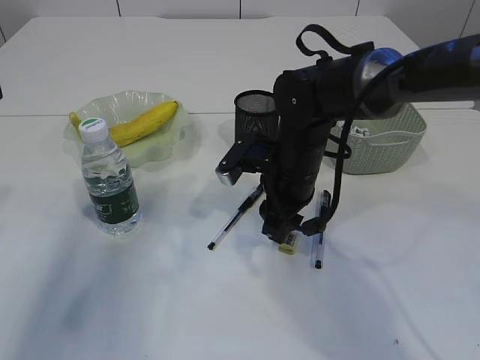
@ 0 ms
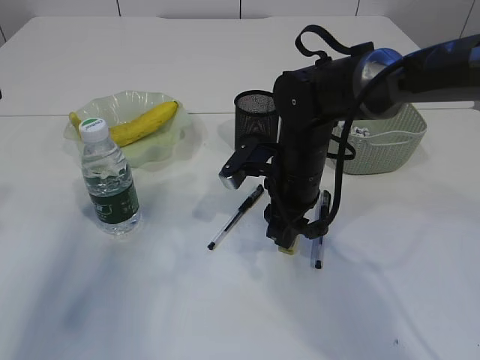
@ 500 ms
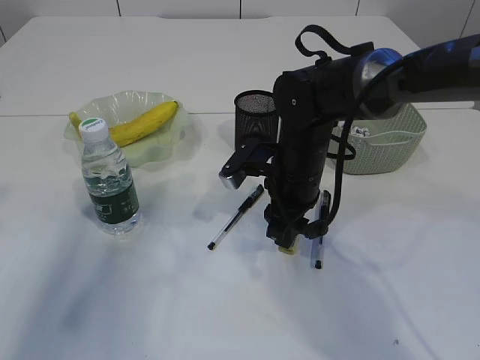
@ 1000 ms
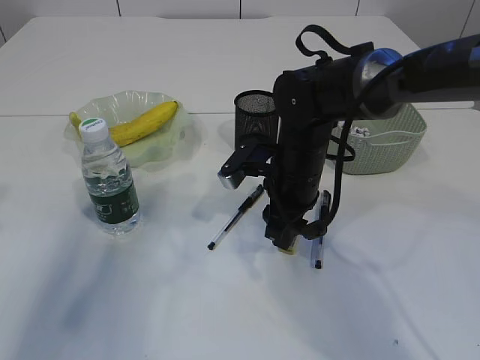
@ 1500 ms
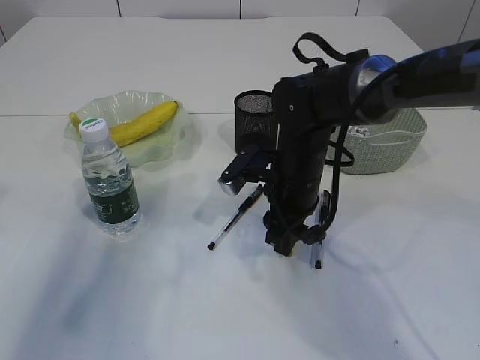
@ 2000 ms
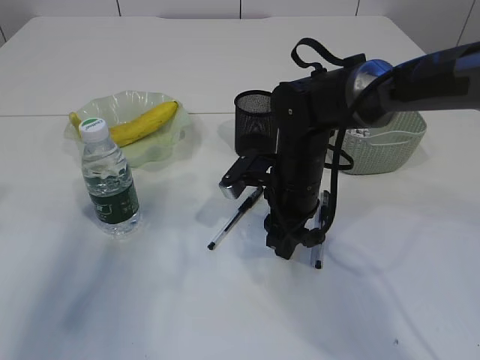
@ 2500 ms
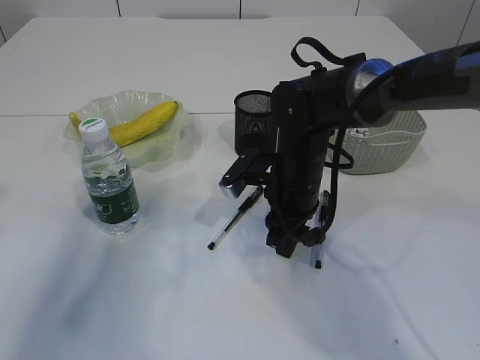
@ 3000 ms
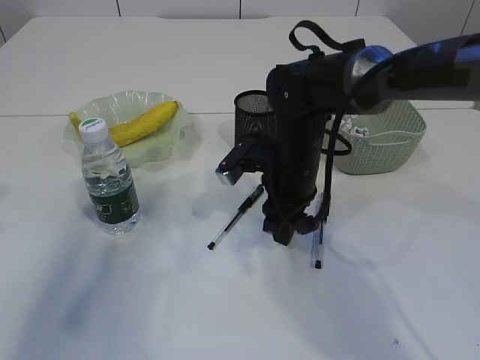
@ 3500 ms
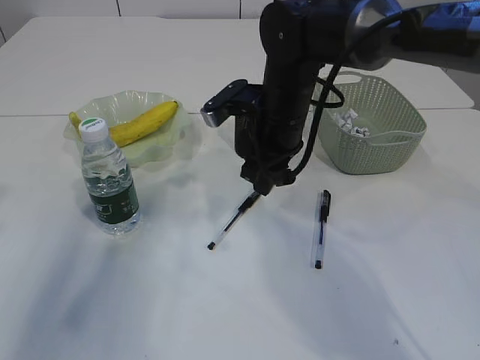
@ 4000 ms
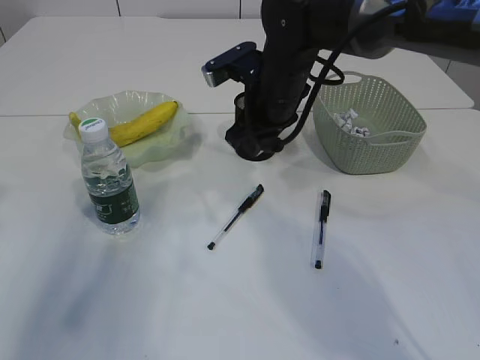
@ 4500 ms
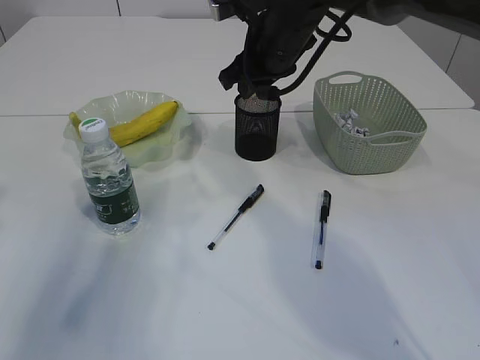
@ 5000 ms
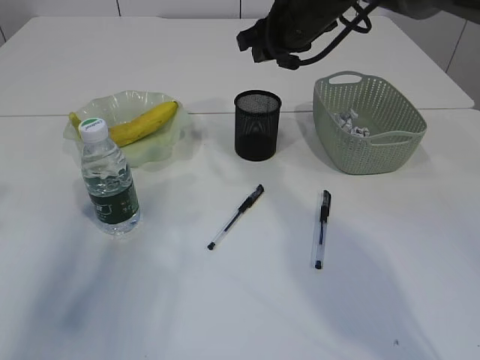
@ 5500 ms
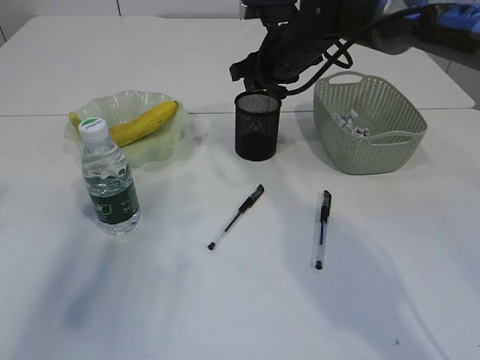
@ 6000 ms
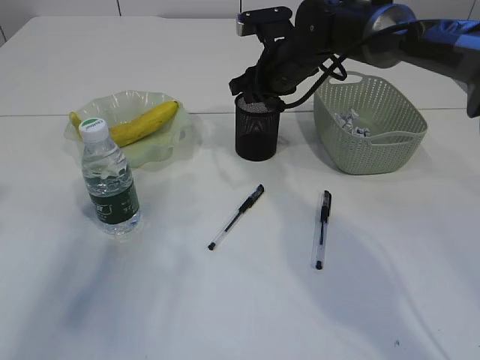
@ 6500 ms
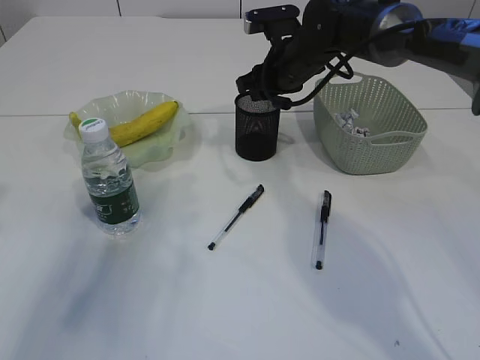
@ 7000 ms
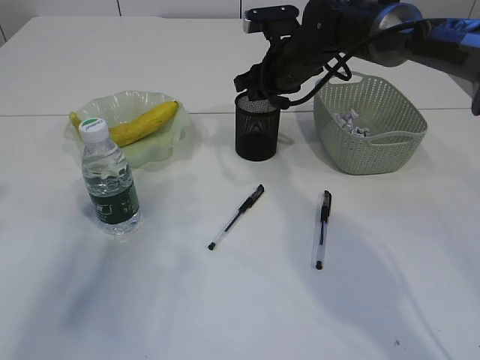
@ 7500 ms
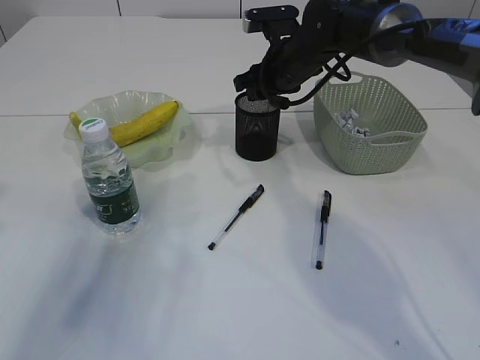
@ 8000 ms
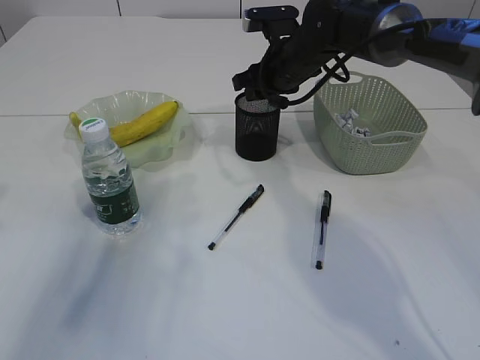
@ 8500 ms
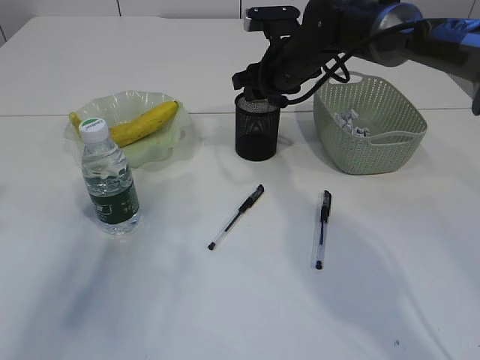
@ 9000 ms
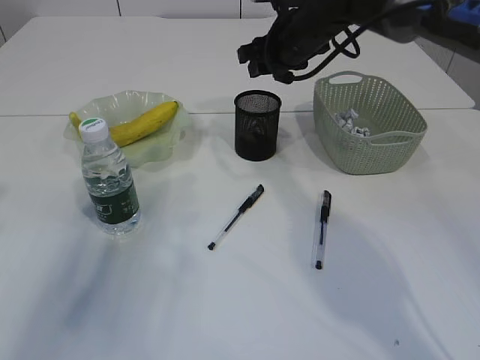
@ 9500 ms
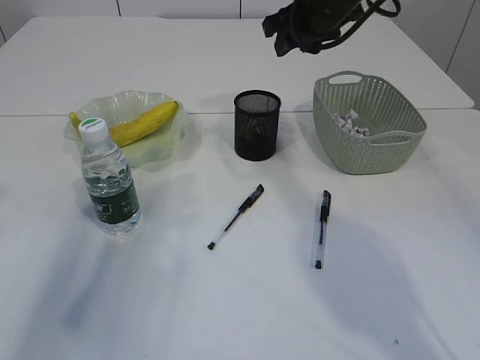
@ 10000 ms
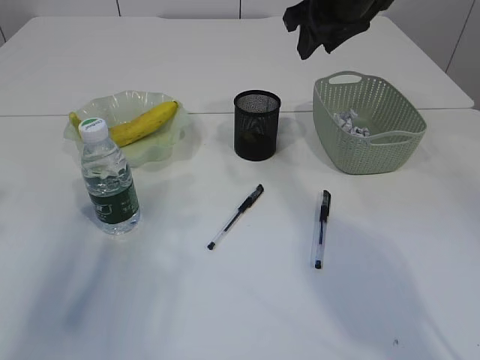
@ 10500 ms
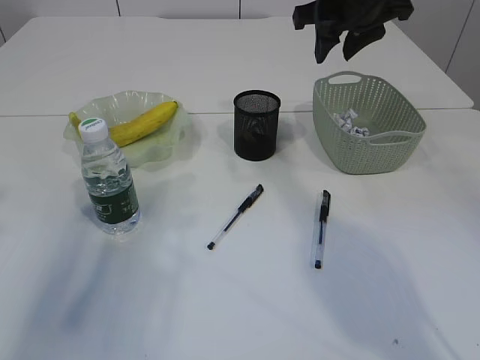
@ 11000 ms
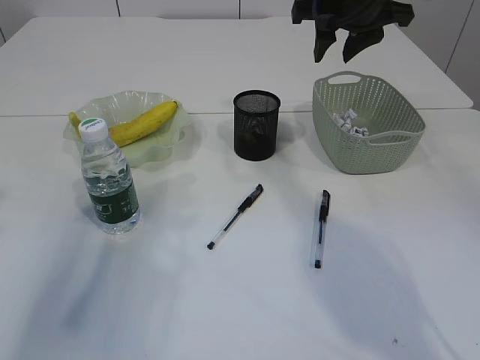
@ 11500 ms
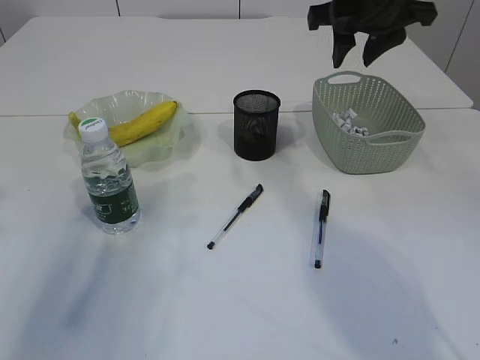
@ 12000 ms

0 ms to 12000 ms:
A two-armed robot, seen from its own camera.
Step, 0 ms to 3500 ms: Pick up the eraser.
Step, 4000 ms to 9500 ms: Place the eraser into the pen holder.
0 ms to 2000 ms: There are only small adjustments of the grippers.
2000 ms to 4000 ms: The right gripper shifts some 5 cm upward.
4000 ms to 6000 ms: The right gripper moves forward, approximately 10 cm.
6000 ms to 8000 ms: The grippers make only small movements.
8000 ms to 10000 ms: The right gripper is displaced upward by roughly 10 cm.
10000 ms to 12000 ms: The right gripper shifts approximately 5 cm backward.

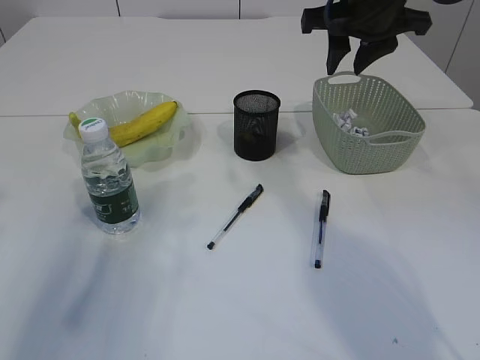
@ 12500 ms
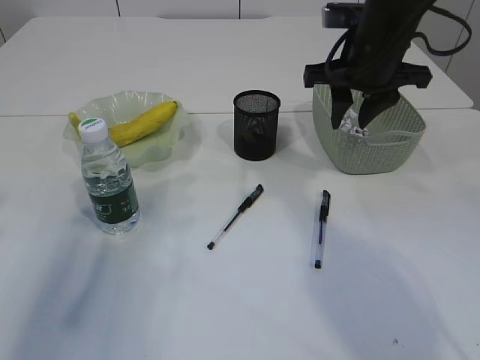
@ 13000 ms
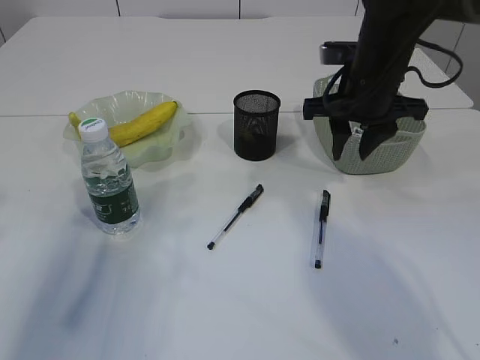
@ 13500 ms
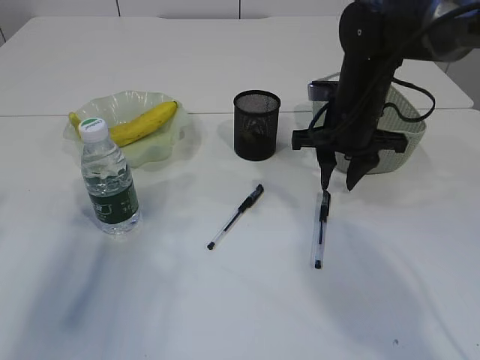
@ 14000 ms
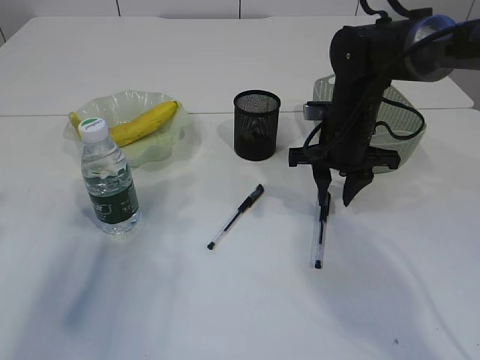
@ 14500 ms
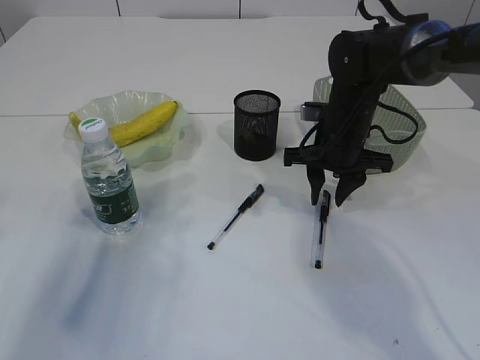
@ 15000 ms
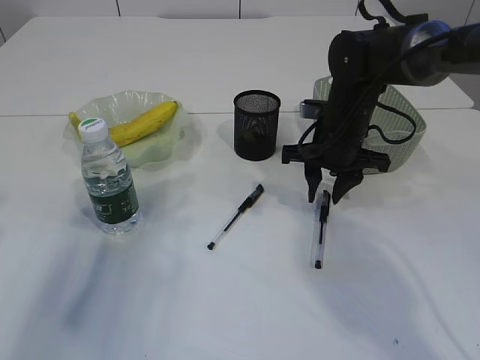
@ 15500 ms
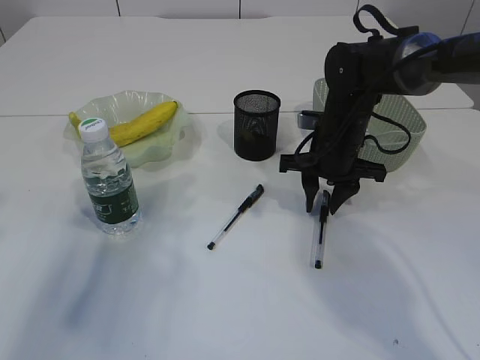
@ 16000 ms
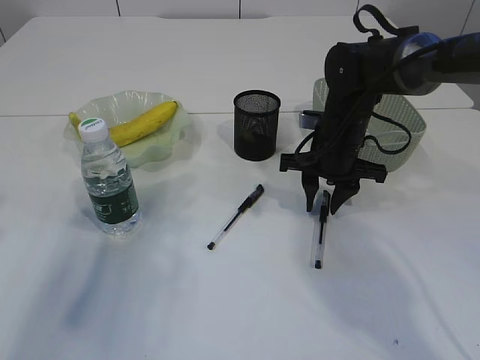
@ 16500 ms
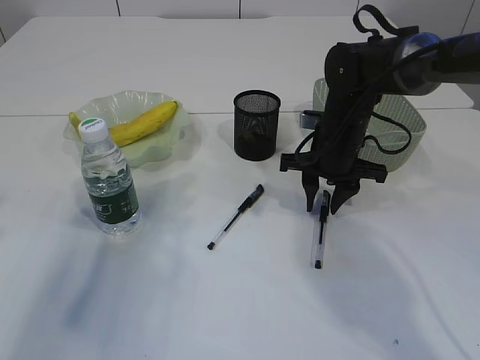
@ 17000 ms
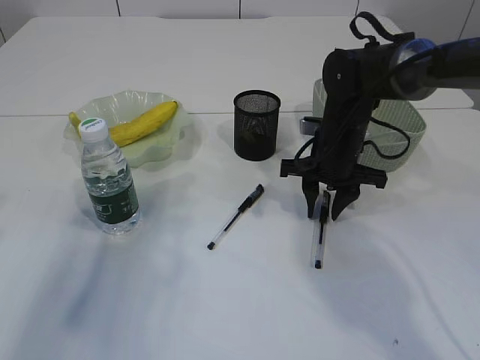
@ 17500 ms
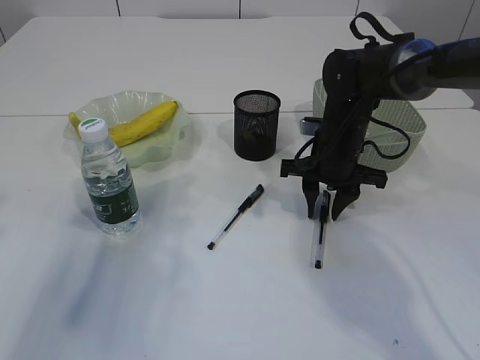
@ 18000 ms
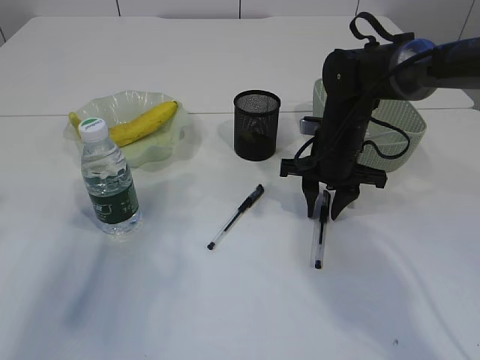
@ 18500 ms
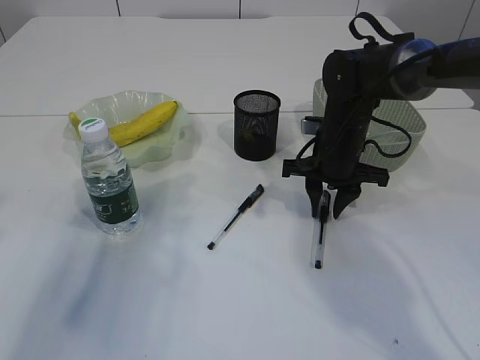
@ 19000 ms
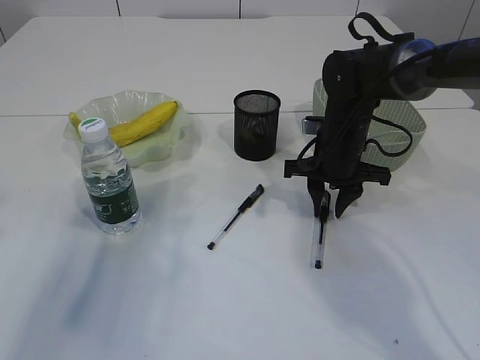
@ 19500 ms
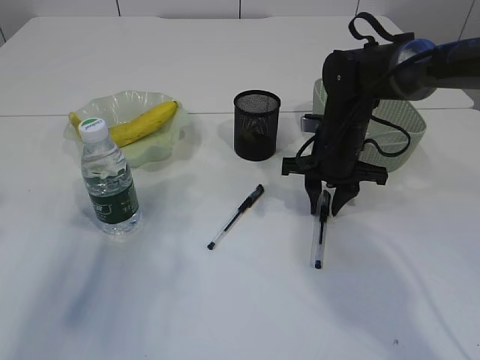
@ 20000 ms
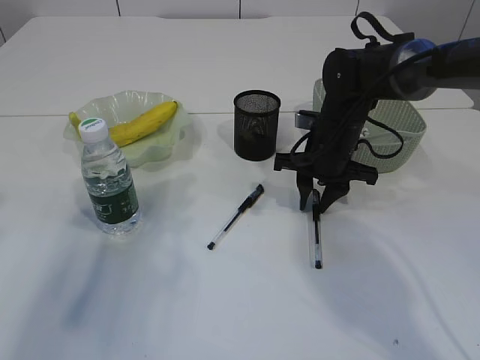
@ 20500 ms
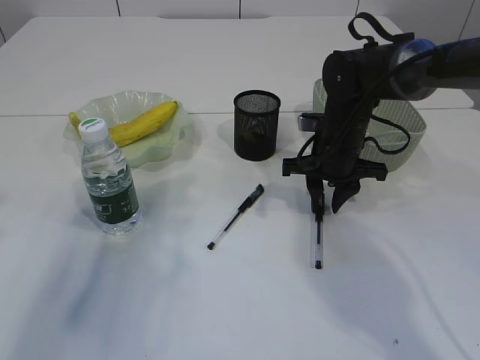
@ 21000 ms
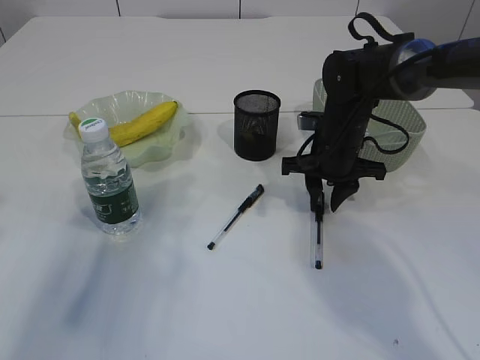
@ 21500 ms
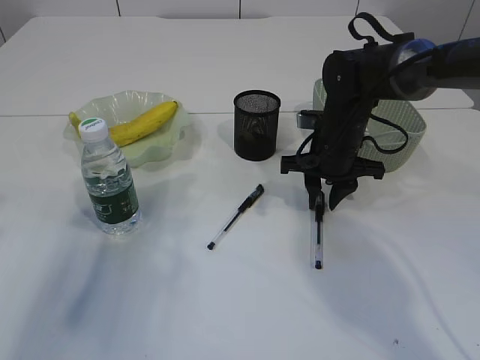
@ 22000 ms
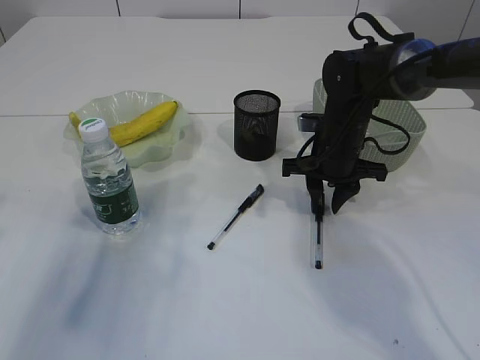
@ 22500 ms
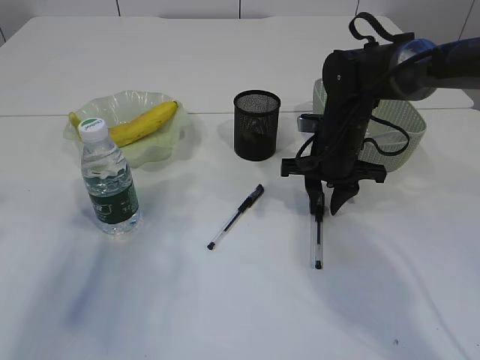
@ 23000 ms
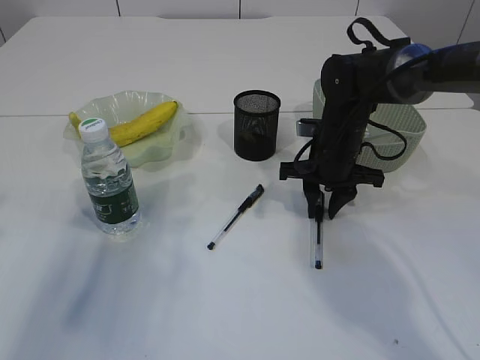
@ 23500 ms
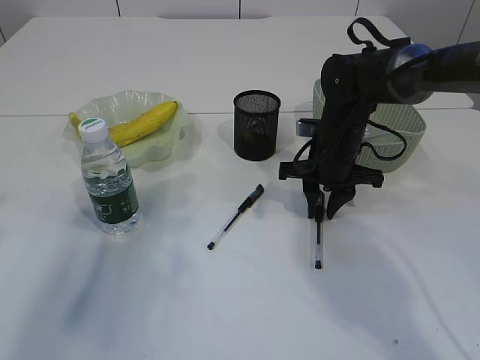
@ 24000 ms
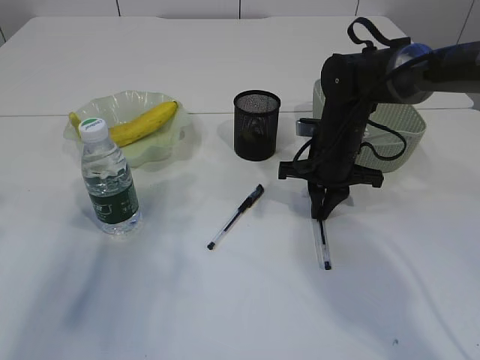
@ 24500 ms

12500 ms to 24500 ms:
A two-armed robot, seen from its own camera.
12500 ms to 14500 ms: The right gripper is displaced downward by about 15 cm.
14500 ms to 16500 ms: The grippers make only small movements.
16500 ms to 18500 ms: Neither gripper changes place.
18500 ms to 22500 ms: There are only small adjustments of the grippers.
22500 ms to 24500 ms: The two grippers keep their place.

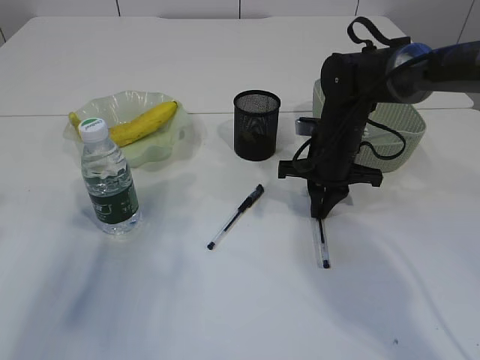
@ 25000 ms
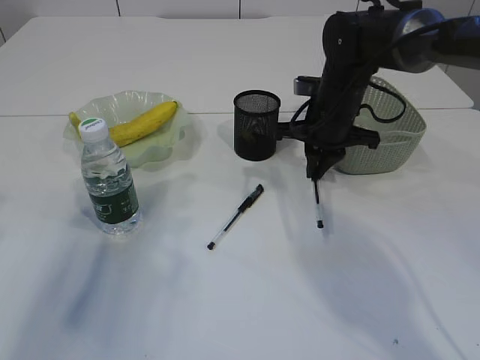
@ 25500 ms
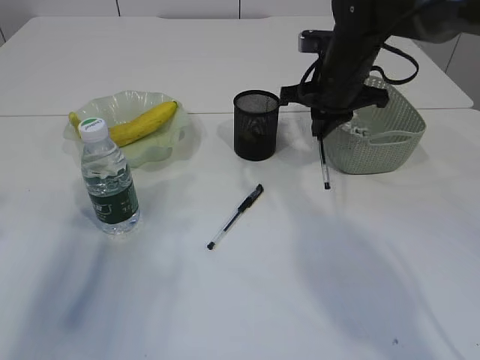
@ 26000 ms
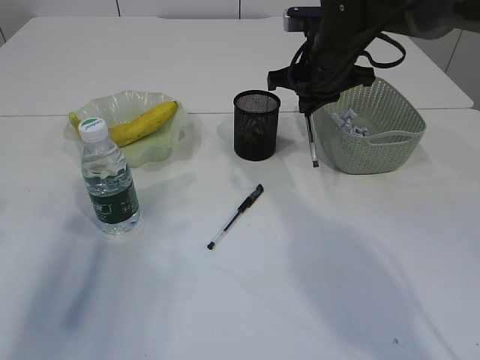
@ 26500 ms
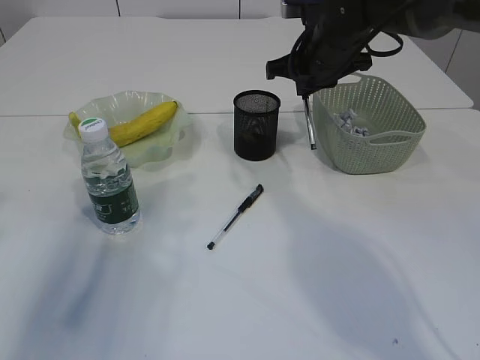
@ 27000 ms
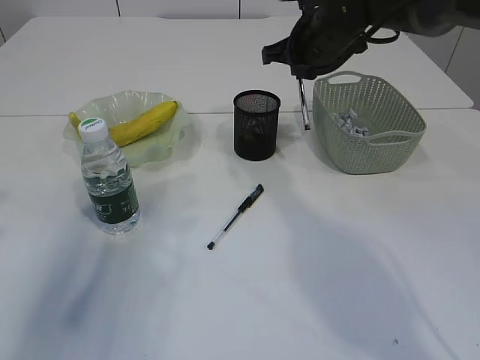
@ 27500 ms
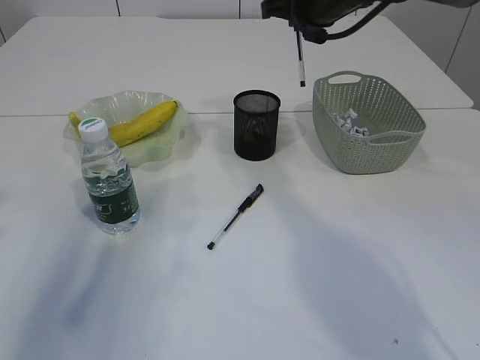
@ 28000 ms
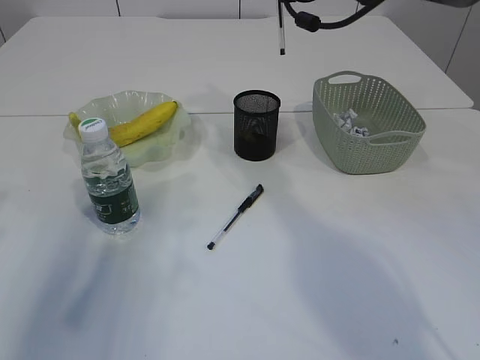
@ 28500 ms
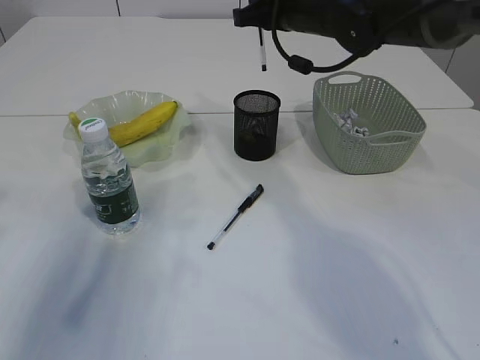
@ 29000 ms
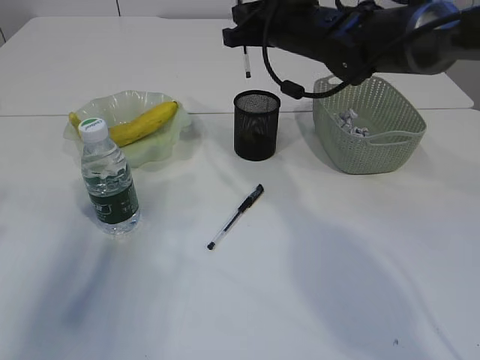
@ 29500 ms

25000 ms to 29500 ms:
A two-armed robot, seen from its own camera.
25000 ms to 27000 ms: The right gripper goes roughly 10 cm upward.
27000 ms to 29500 ms: The right gripper travels upward and back again, roughly 10 cm each way.
